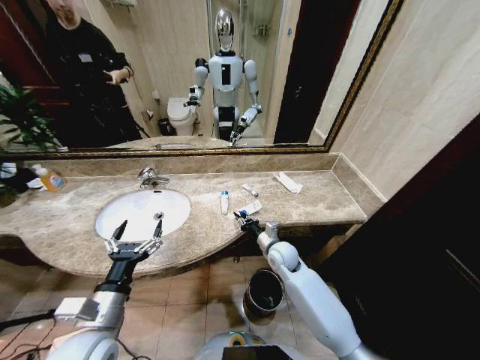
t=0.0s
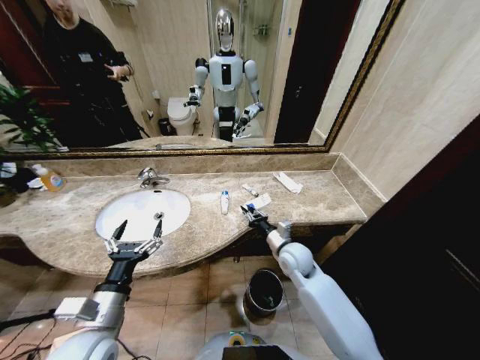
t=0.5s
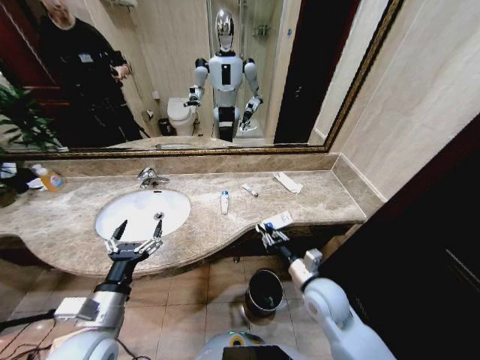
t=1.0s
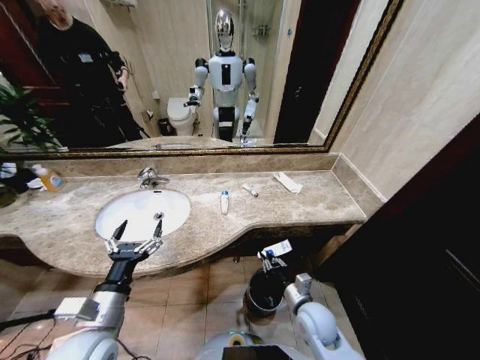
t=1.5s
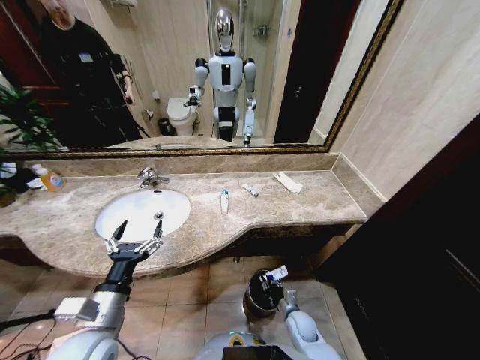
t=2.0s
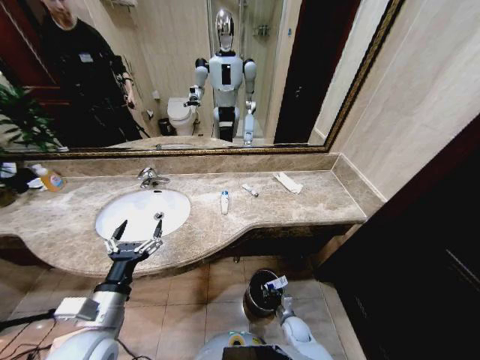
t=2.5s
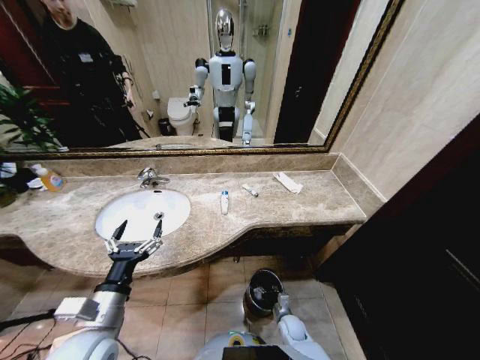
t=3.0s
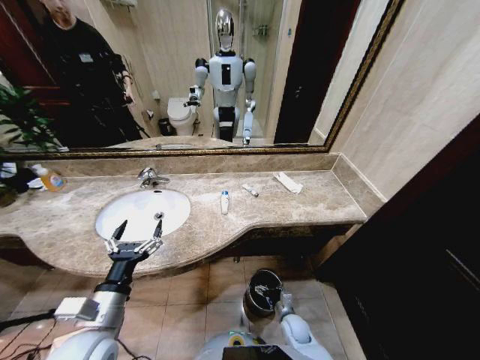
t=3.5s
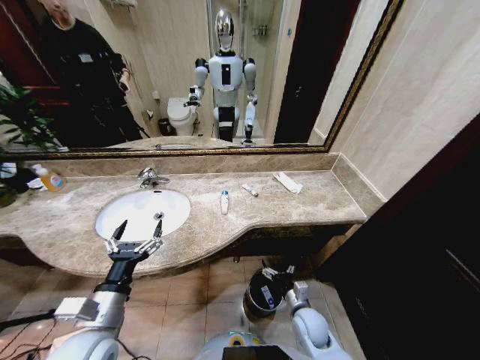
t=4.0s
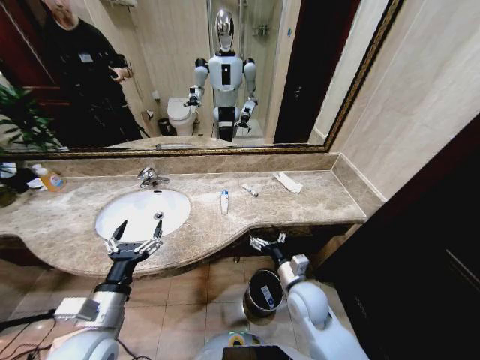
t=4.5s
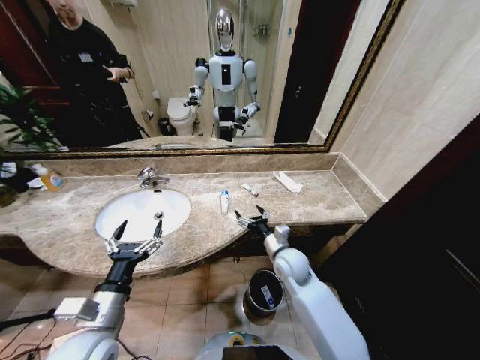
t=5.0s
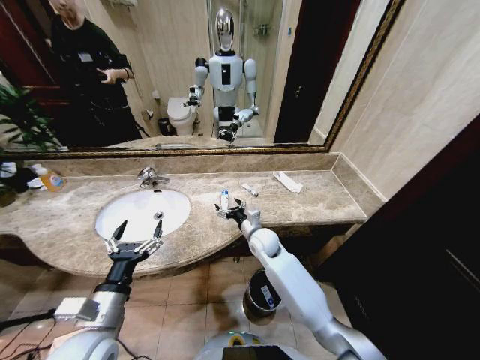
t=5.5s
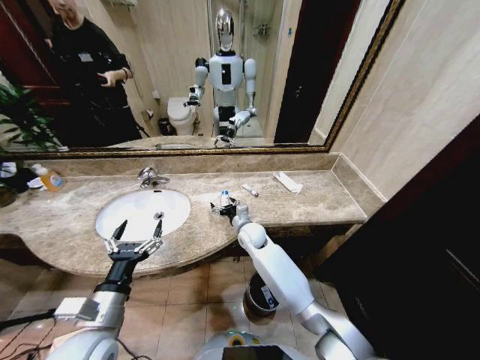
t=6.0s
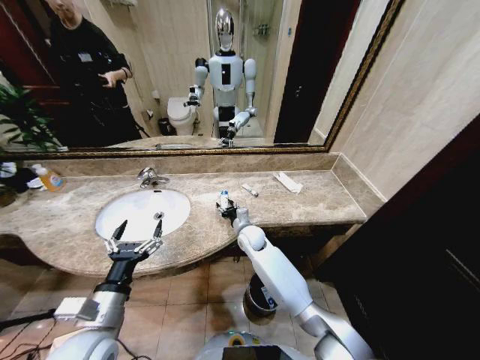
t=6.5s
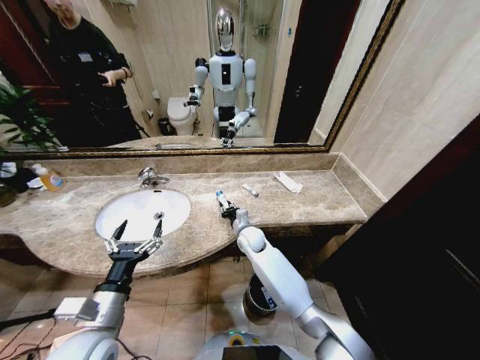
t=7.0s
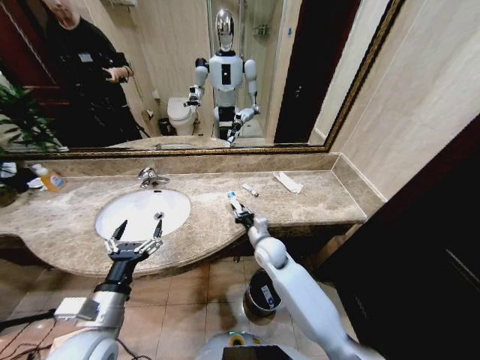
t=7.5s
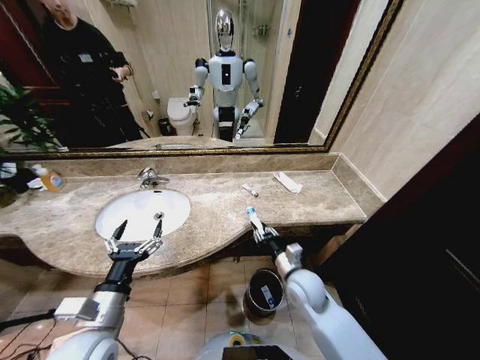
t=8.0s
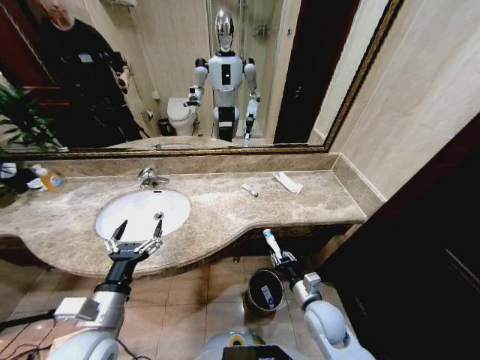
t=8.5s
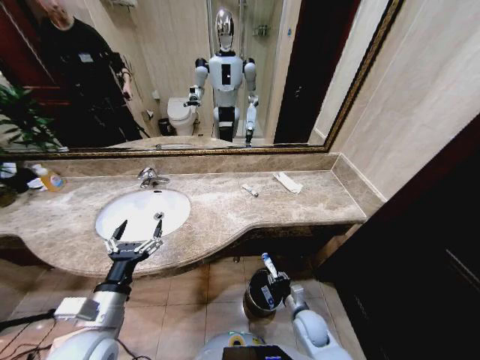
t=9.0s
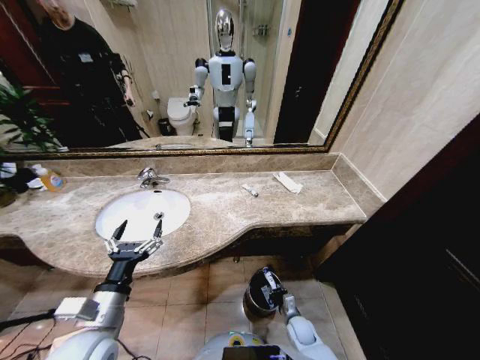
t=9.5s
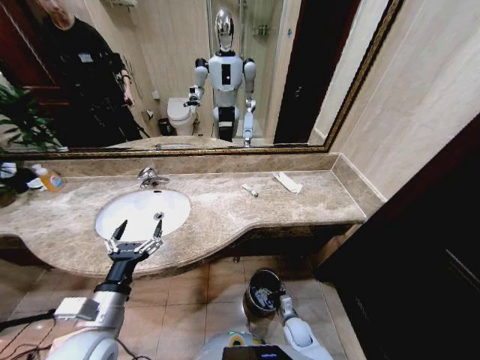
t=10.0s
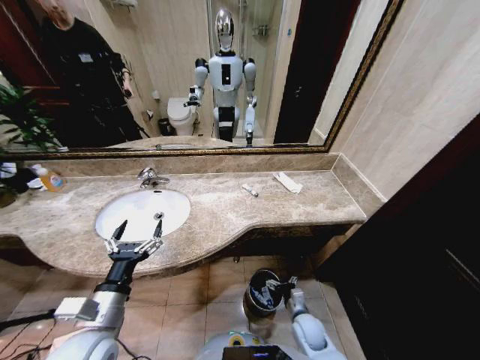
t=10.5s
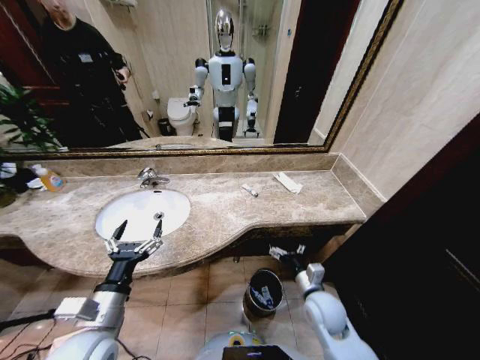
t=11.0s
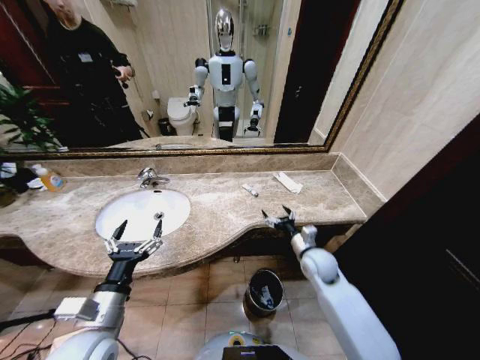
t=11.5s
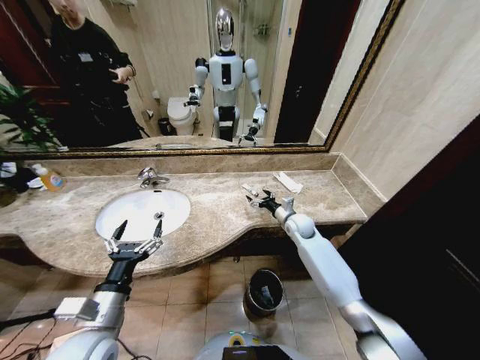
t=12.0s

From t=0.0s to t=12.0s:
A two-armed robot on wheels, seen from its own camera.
Task of the whole recording: Pick up the trash from the sink and place it in the trash bin.
From t=0.0s to t=2.0s: The right gripper heads downward and backward, covering some 25 cm.
From t=2.0s to t=4.0s: The right gripper moves upward, about 10 cm, and opens its fingers.
From t=4.0s to t=6.0s: The right gripper travels forward, to the left and upward by some 30 cm.
From t=6.0s to t=8.0s: The right gripper is displaced backward and to the right by roughly 25 cm, and closes its fingers.
From t=8.0s to t=10.0s: The right gripper heads downward, covering roughly 25 cm, and opens its fingers.
From t=10.0s to t=12.0s: The right gripper is displaced upward and forward by approximately 40 cm.

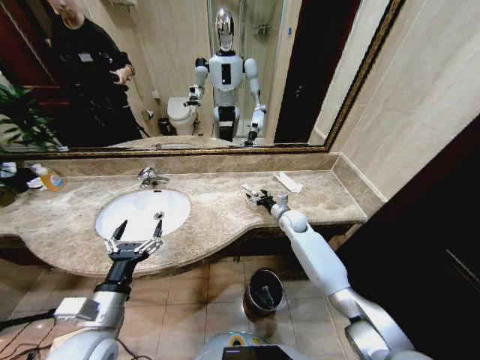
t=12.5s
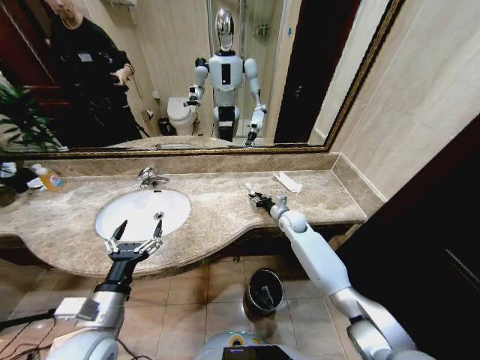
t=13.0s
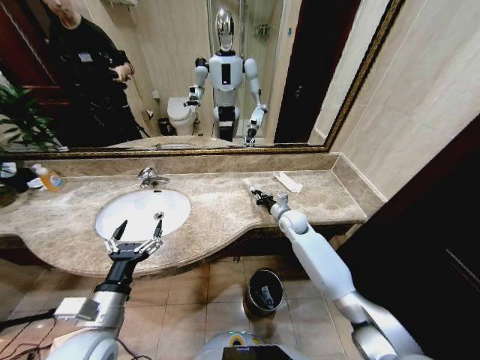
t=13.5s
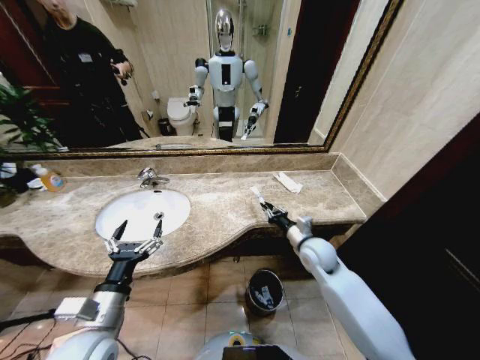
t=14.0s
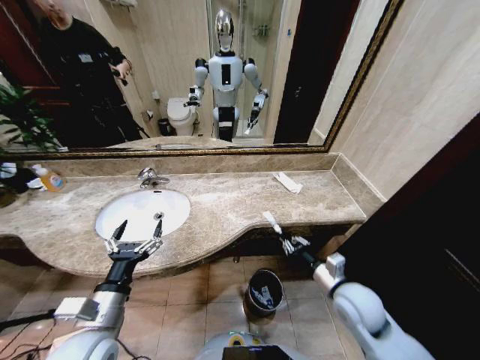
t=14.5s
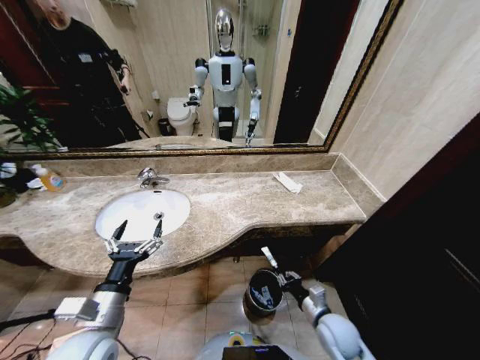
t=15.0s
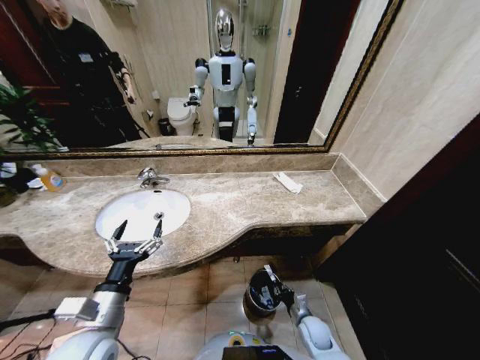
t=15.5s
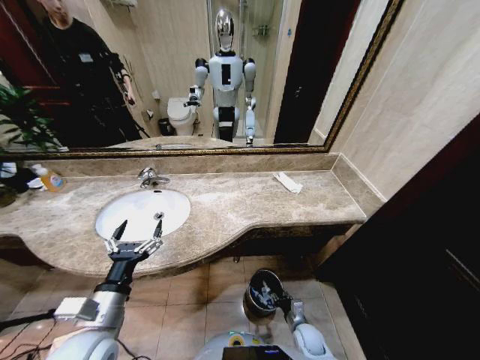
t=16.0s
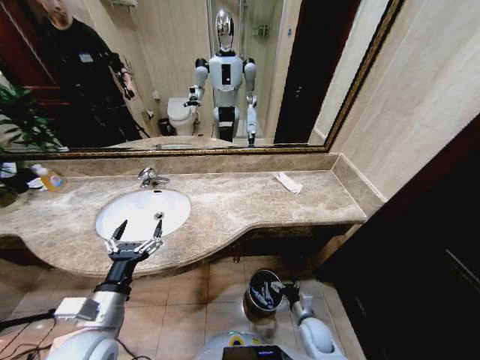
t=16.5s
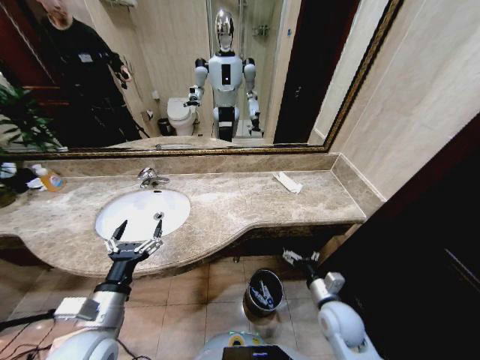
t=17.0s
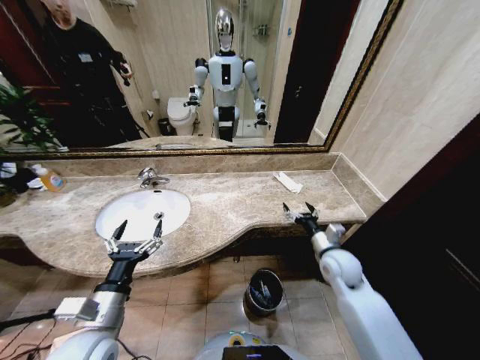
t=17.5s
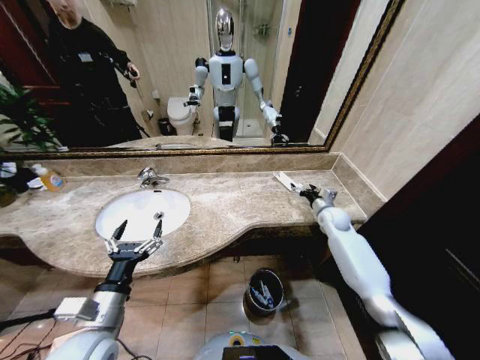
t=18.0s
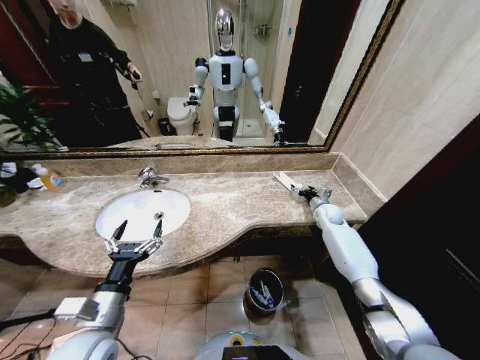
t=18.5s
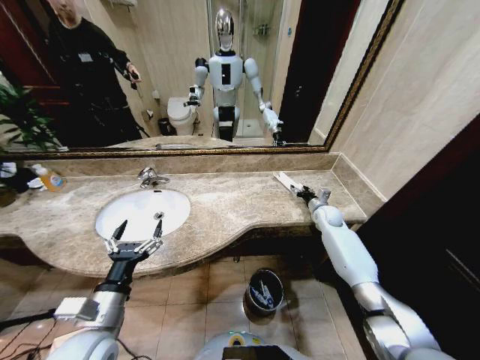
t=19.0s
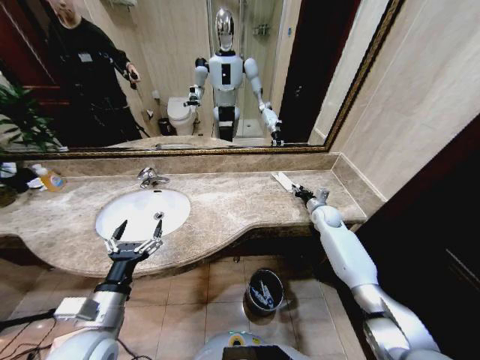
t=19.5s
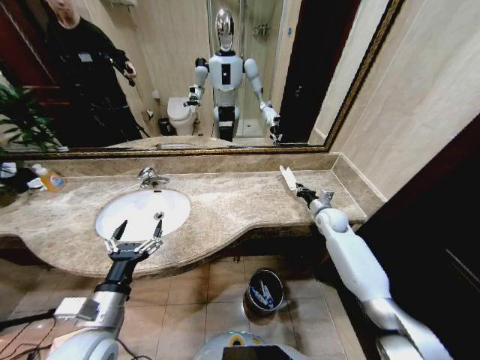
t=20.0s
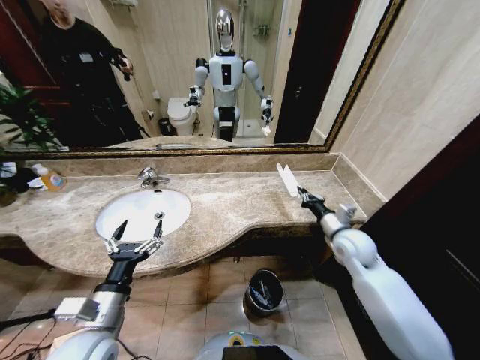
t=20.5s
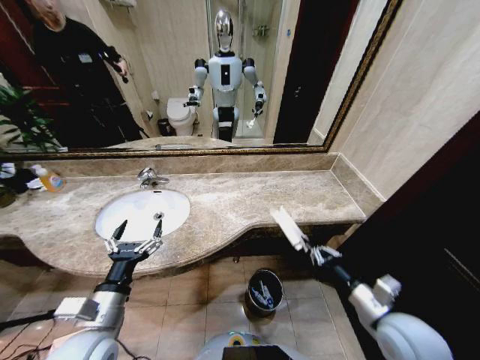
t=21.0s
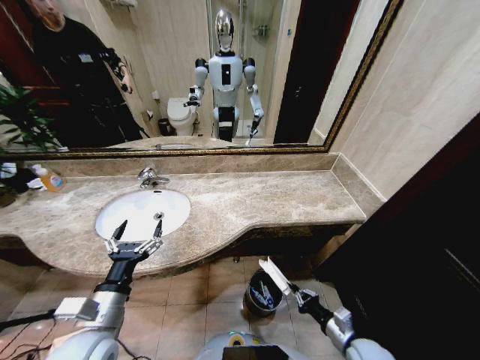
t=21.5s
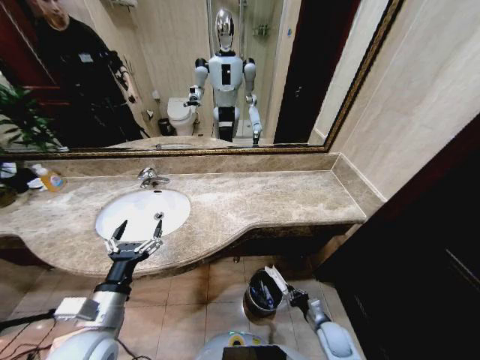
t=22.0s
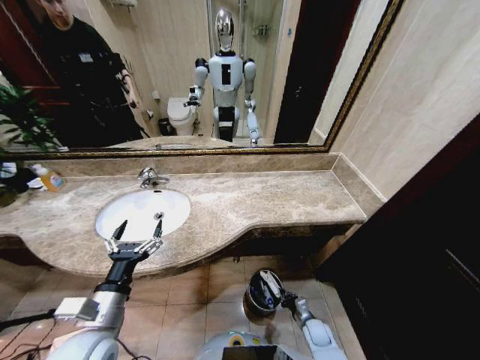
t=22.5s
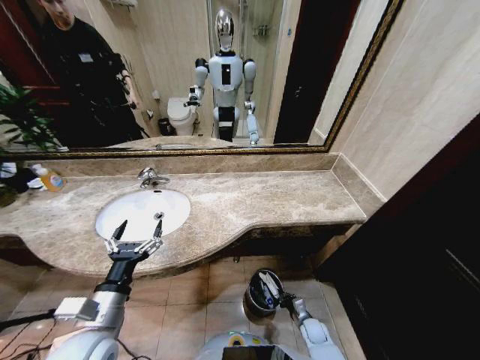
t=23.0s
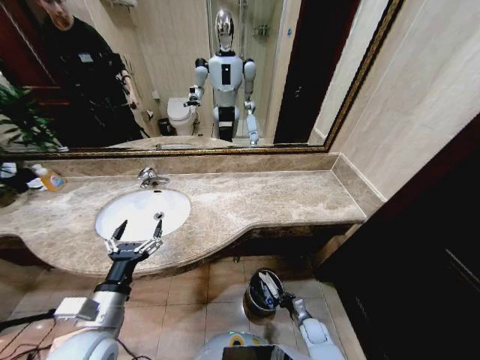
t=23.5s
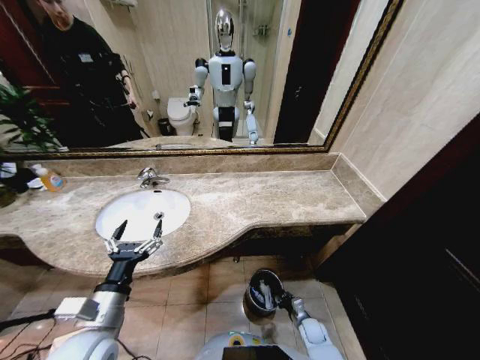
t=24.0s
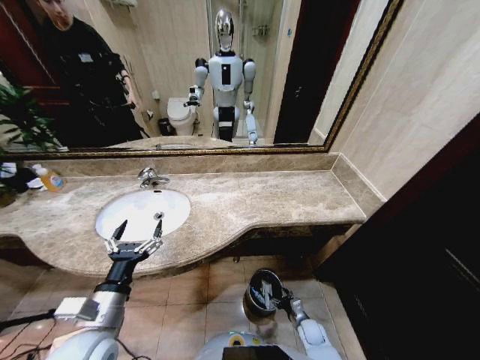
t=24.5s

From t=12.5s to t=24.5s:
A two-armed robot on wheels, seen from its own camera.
Task of the whole recording: Pick up the trash from the sink and place it in the trash bin.
From t=12.5s to t=14.5s: The right gripper travels backward by about 30 cm, and closes.
From t=14.5s to t=16.5s: The right gripper moves downward, some 25 cm, and opens up.
From t=16.5s to t=18.5s: The right gripper heads forward and upward, covering approximately 40 cm.
From t=18.5s to t=20.5s: The right gripper travels backward and upward by some 20 cm, and closes.
From t=20.5s to t=22.5s: The right gripper moves downward, about 35 cm.
From t=22.5s to t=24.5s: The right gripper opens its fingers.

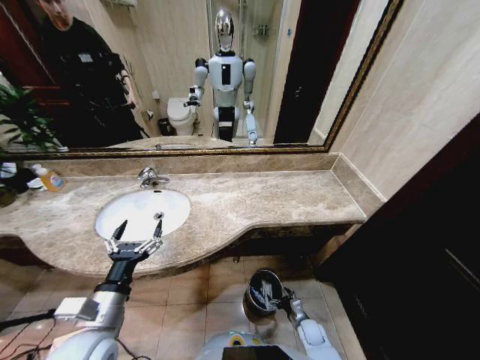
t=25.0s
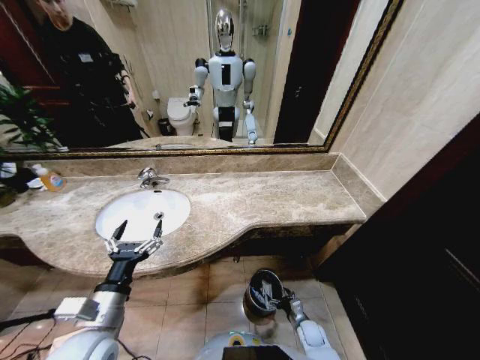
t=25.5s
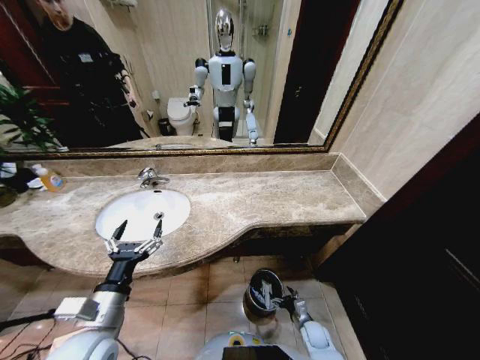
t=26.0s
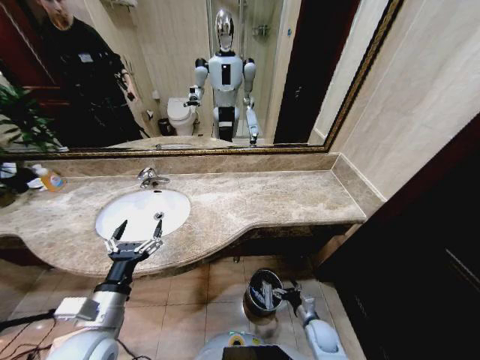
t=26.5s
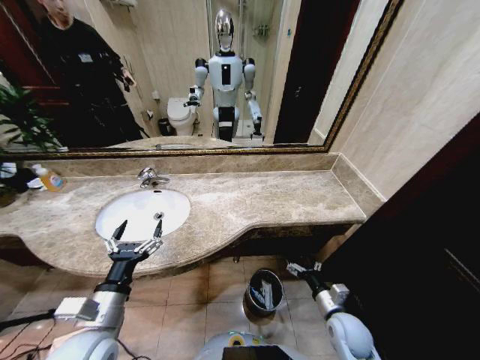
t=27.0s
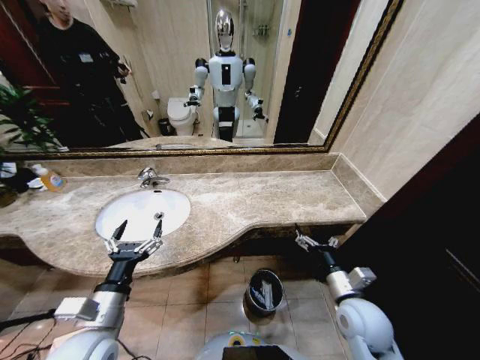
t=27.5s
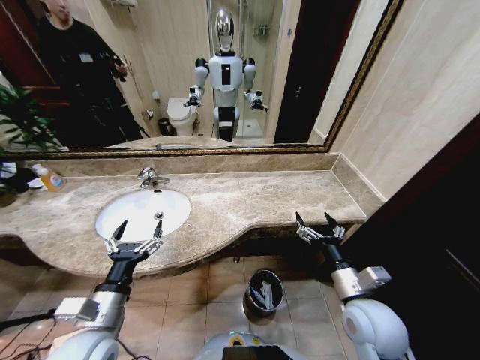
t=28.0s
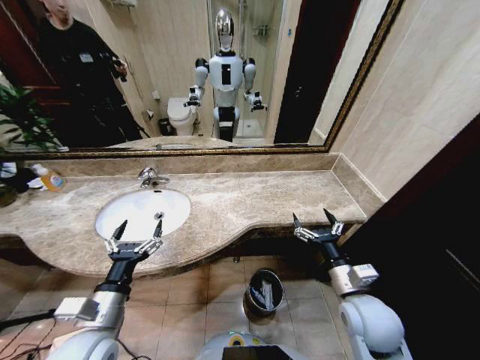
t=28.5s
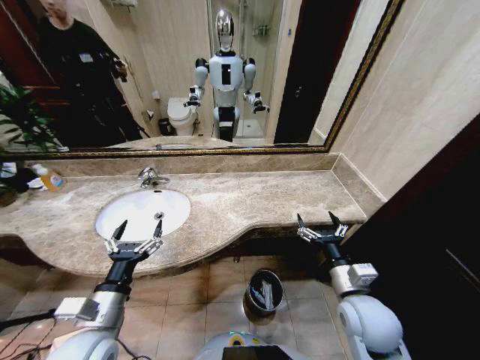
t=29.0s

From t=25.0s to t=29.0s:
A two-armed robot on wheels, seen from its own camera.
Task of the whole recording: Pick up the trash from the sink and place it in the trash bin.
From t=25.0s to t=27.0s: The right gripper is displaced upward by roughly 20 cm.
From t=27.0s to t=29.0s: The right gripper is displaced upward by some 15 cm.
